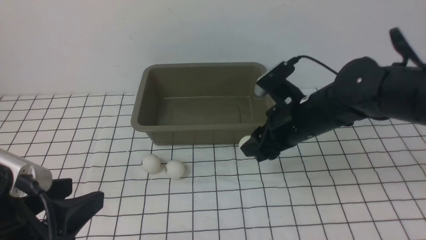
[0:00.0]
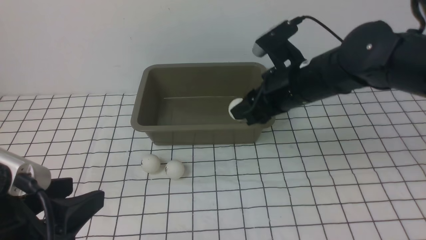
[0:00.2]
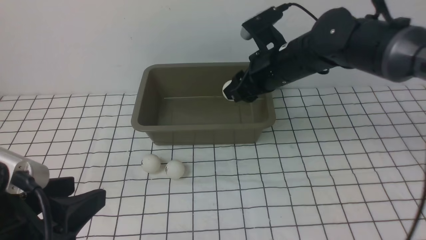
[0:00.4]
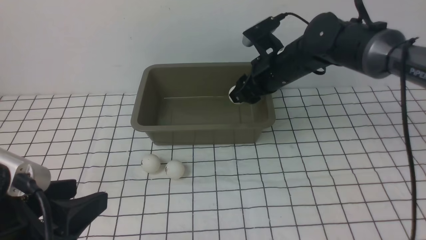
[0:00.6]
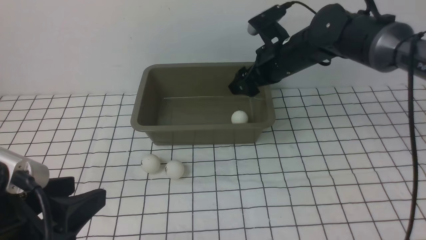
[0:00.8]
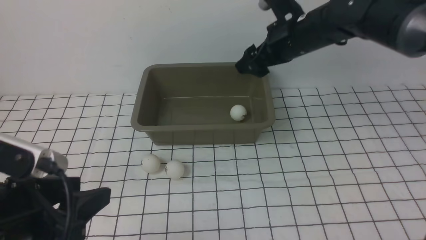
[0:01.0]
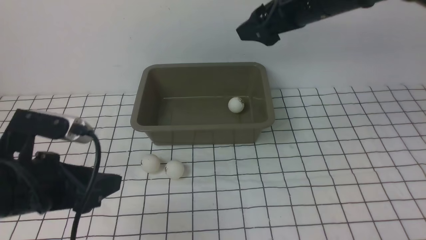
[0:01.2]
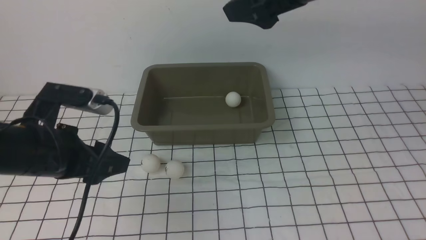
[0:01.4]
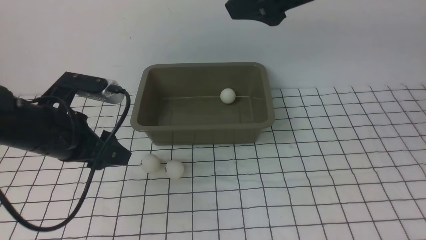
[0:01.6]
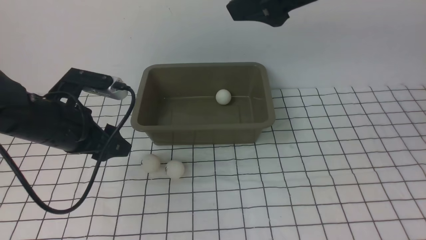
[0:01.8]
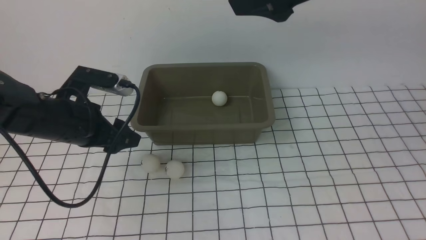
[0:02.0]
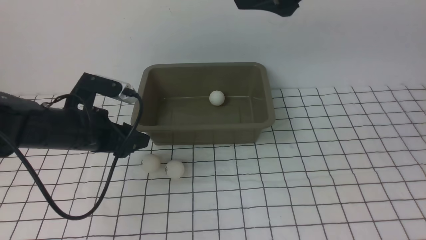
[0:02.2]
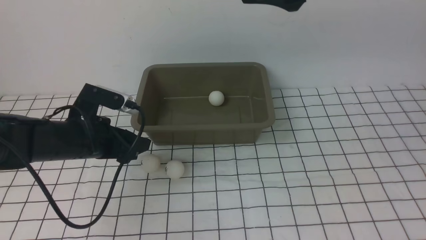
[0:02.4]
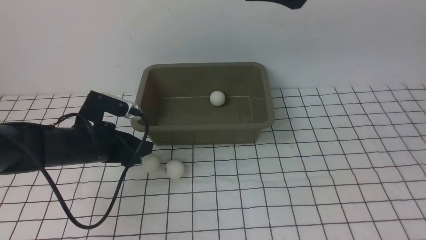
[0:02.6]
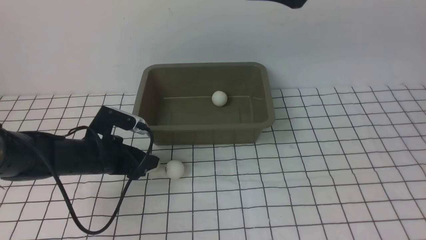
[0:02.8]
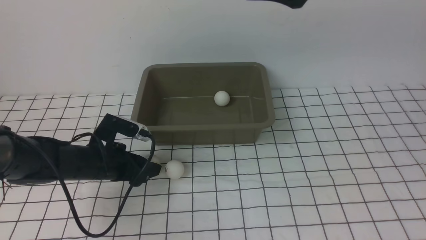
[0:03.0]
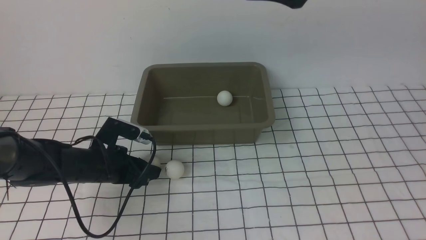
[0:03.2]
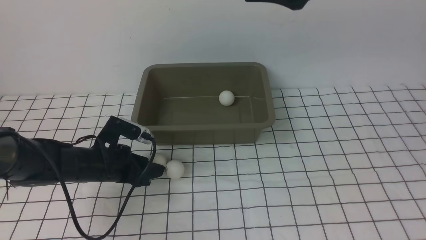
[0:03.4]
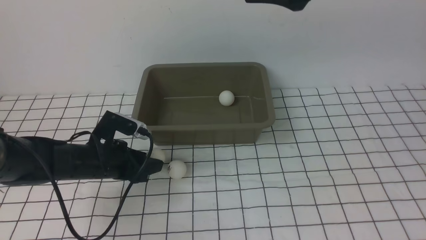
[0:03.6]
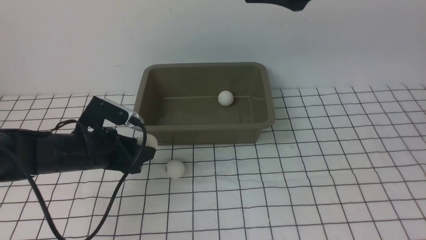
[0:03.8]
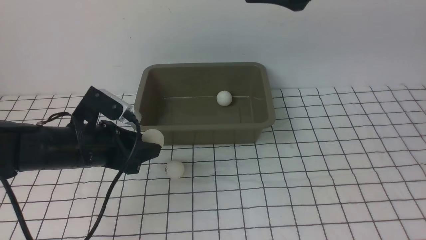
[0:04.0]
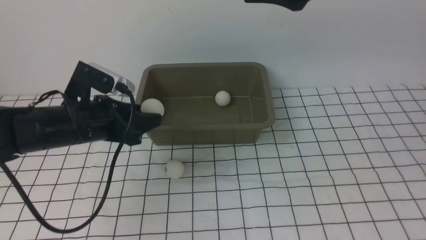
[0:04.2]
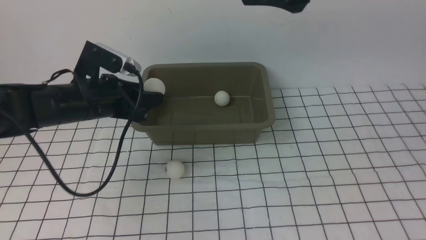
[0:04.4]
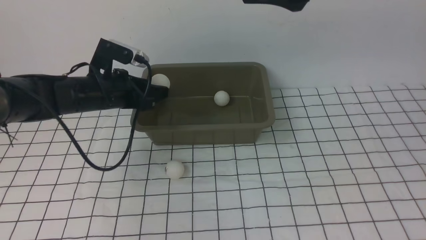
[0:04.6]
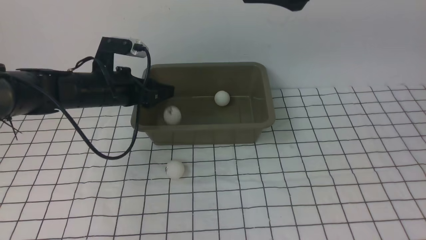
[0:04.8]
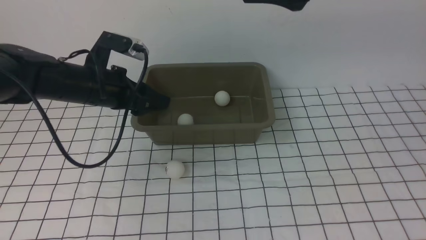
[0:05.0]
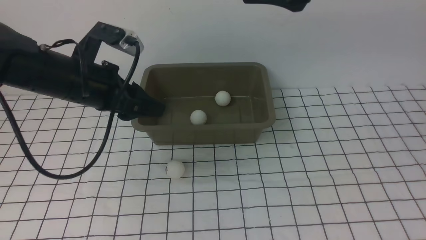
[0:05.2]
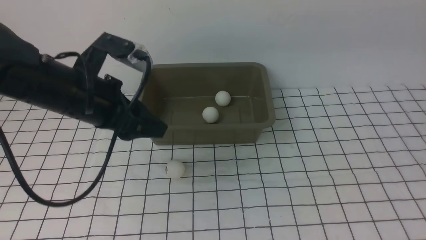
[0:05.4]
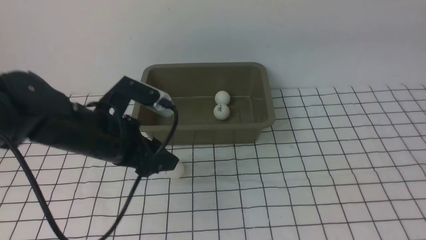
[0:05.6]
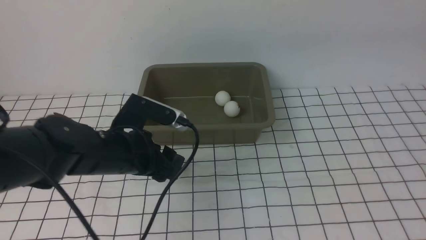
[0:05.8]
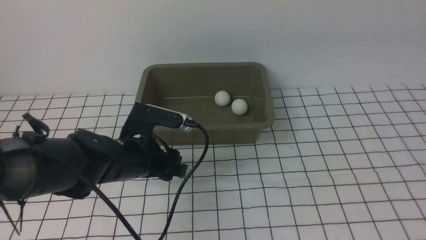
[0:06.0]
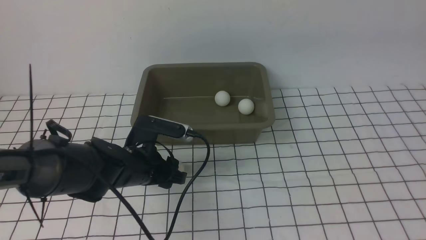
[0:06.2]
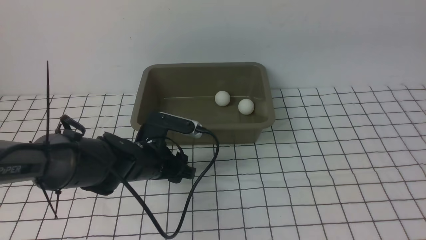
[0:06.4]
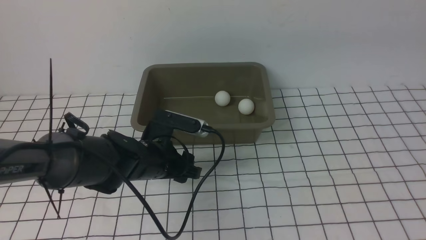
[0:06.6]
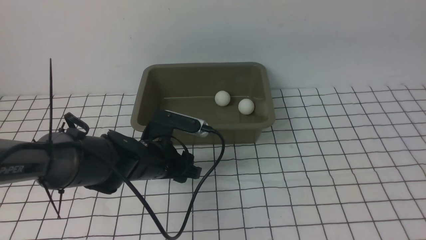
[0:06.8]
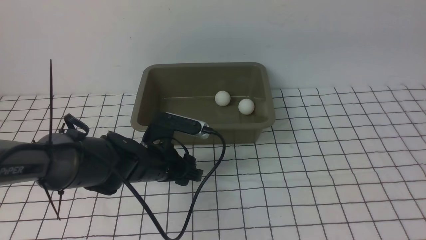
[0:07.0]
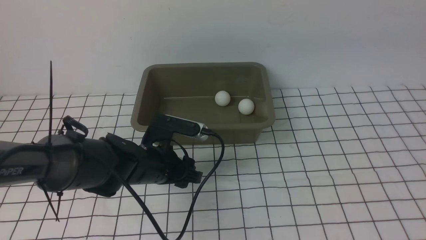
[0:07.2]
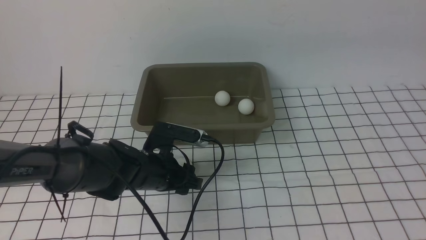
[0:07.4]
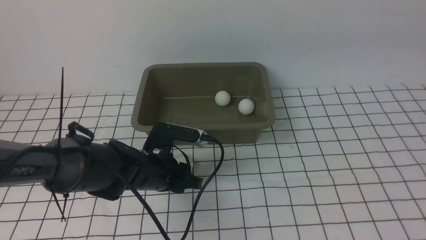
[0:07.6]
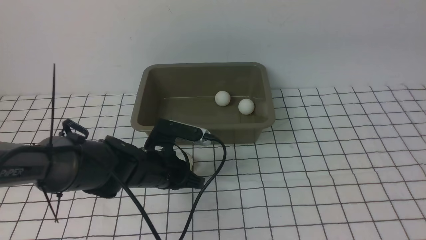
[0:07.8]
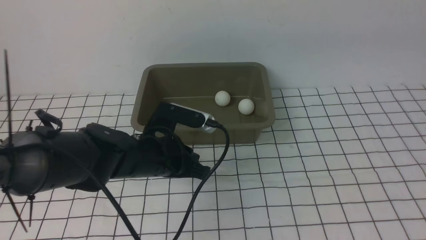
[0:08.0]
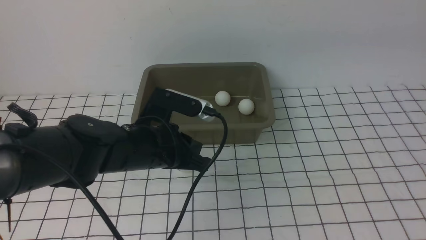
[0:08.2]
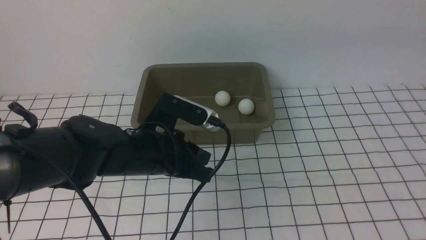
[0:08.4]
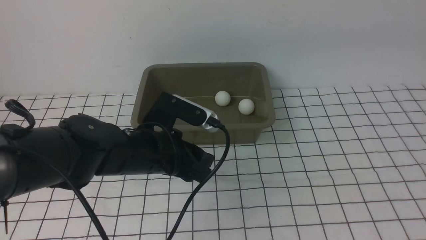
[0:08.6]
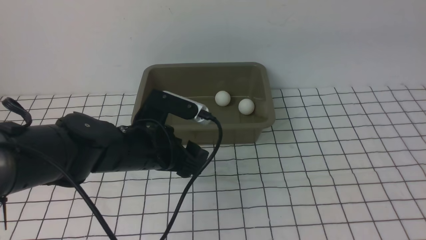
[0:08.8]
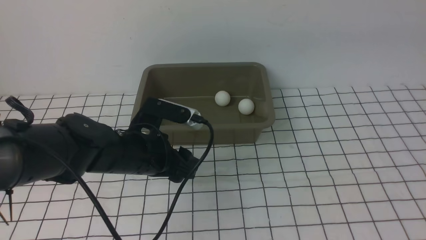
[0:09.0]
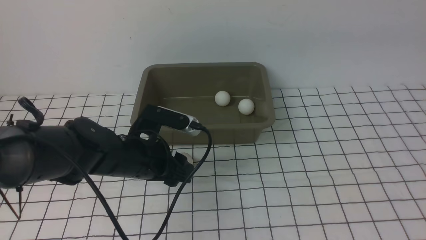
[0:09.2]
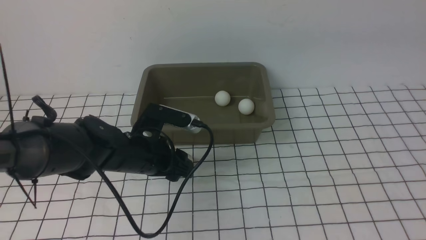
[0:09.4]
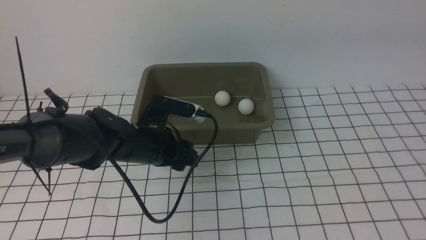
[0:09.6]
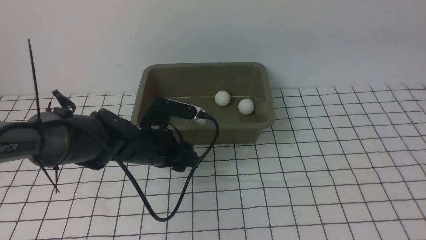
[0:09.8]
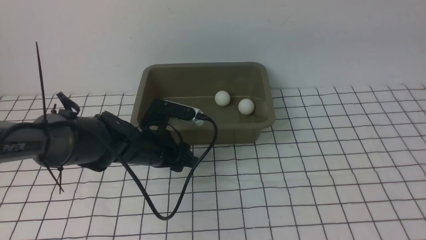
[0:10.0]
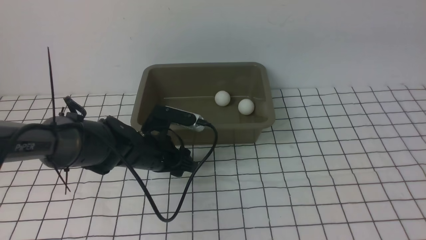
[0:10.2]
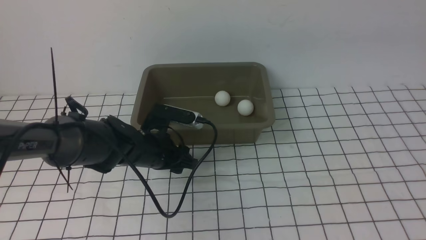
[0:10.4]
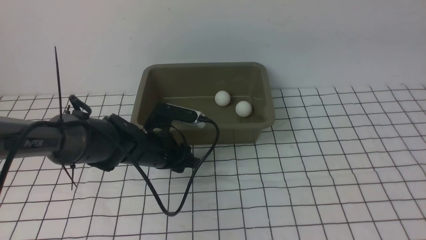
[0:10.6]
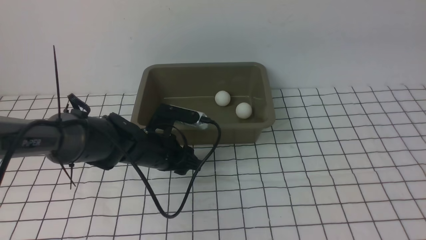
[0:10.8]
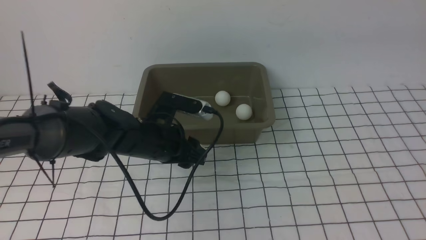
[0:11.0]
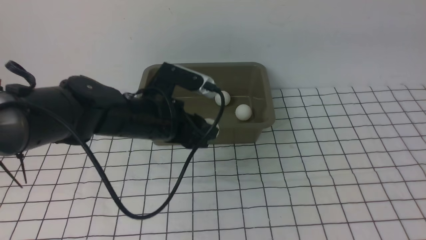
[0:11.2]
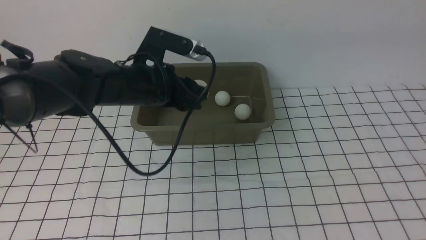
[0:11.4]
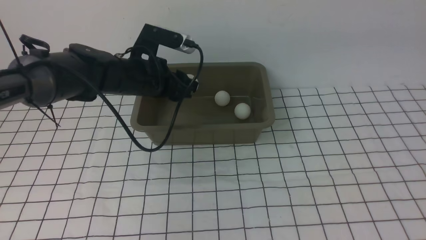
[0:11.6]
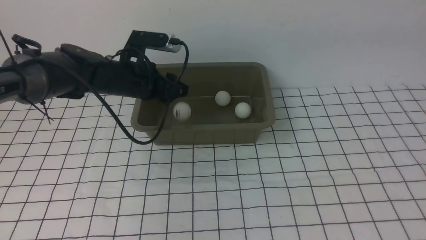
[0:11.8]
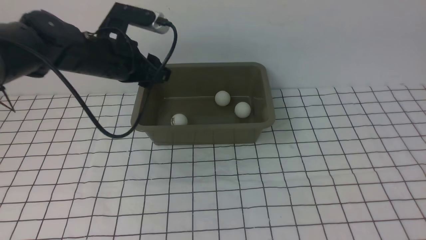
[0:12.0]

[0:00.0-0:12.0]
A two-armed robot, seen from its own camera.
Step, 0:00.2 to 0:00.8: use the right arm to put the table tennis ball into the box.
Step, 0:01.2 to 0:03.6: use the left arm to clamp the table tennis ball closest to it.
Step, 0:03.8 to 0:04.8: use the left arm to put the table tennis ball into the box.
Step, 0:05.0 to 0:11.2: use the left arm to clamp the table tennis ball closest to it.
Step, 0:11.4 to 0:12.0: use the left arm to put the table tennis ball into the box.
0:00.0 to 0:01.6: The left gripper is displaced forward by approximately 20 cm; the right gripper travels upward by roughly 20 cm, and opens.
0:01.6 to 0:03.0: The left gripper is displaced downward by about 15 cm.
0:03.0 to 0:04.4: The left gripper is displaced upward and forward by some 15 cm.
0:04.4 to 0:06.0: The right gripper goes approximately 5 cm backward. The left gripper heads downward, to the right and backward, covering some 15 cm.
0:06.0 to 0:07.6: The left gripper closes its fingers.
0:07.6 to 0:09.0: The left gripper opens its fingers.
0:09.0 to 0:10.4: The left gripper goes approximately 5 cm forward and downward.
0:10.4 to 0:12.0: The right gripper changes place by approximately 5 cm, while the left gripper travels upward and forward by roughly 15 cm.

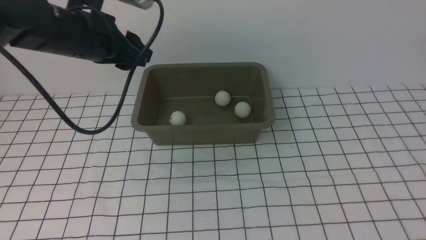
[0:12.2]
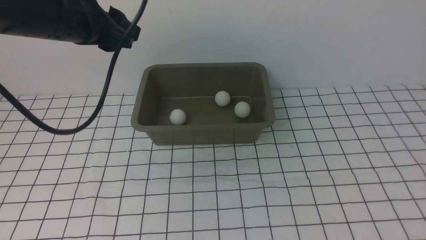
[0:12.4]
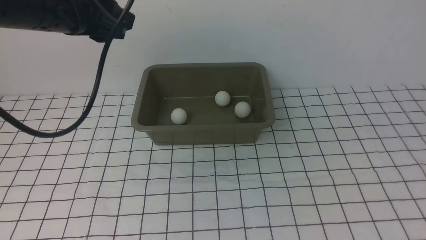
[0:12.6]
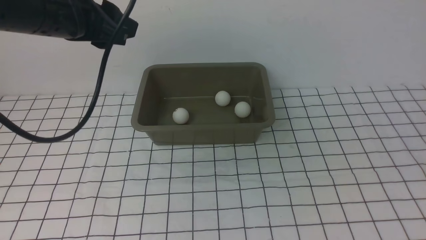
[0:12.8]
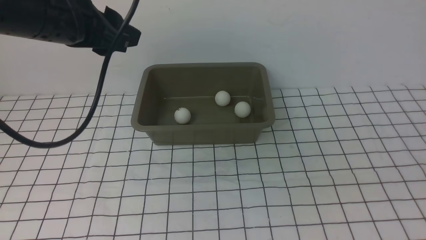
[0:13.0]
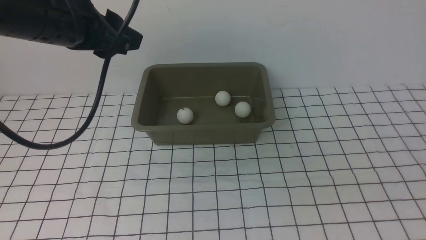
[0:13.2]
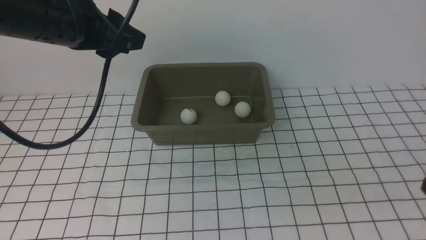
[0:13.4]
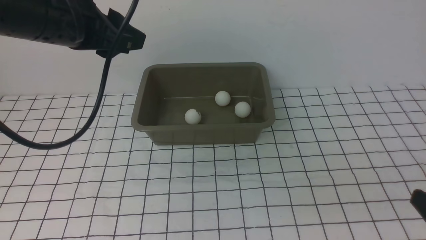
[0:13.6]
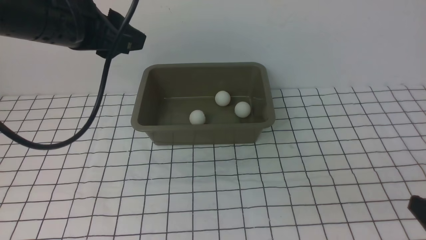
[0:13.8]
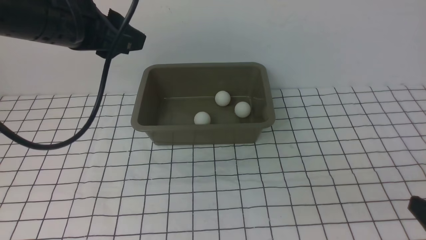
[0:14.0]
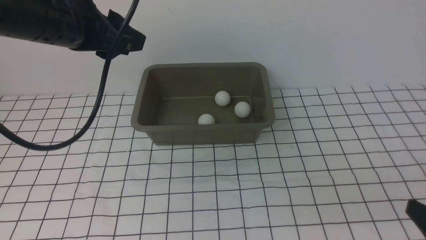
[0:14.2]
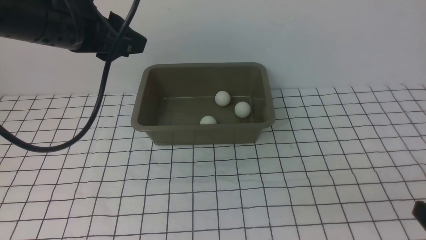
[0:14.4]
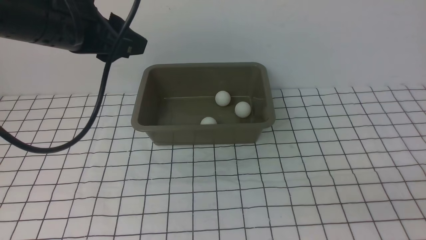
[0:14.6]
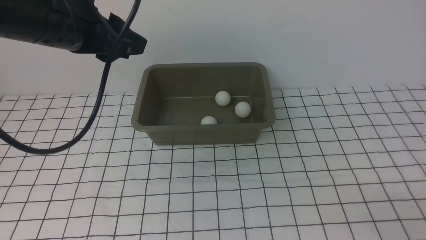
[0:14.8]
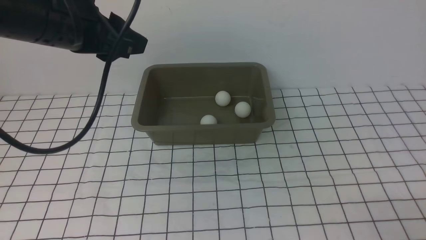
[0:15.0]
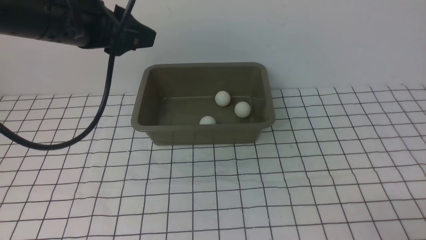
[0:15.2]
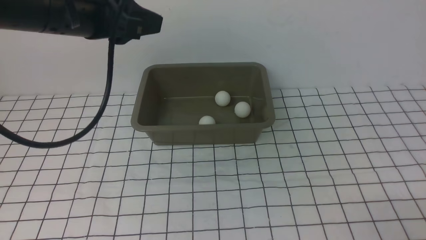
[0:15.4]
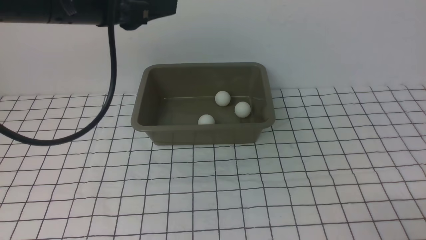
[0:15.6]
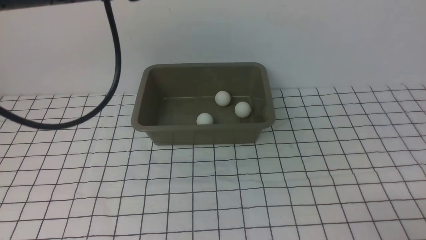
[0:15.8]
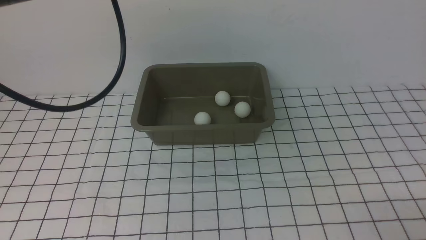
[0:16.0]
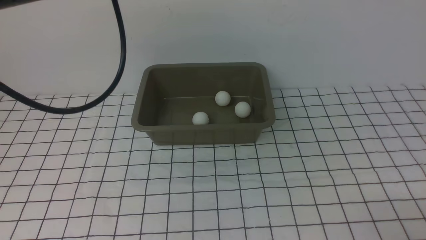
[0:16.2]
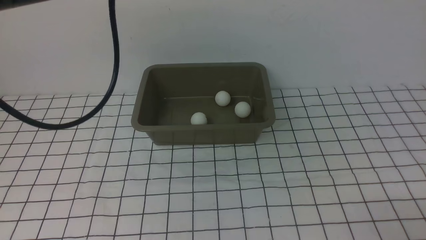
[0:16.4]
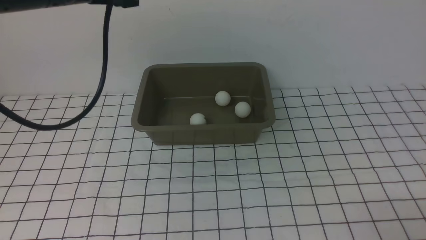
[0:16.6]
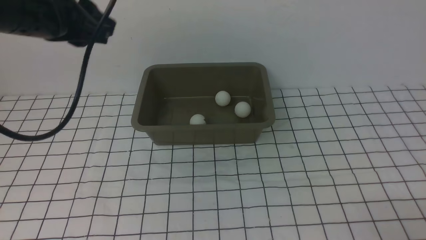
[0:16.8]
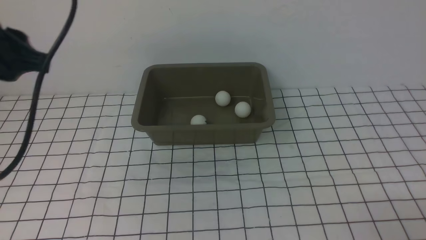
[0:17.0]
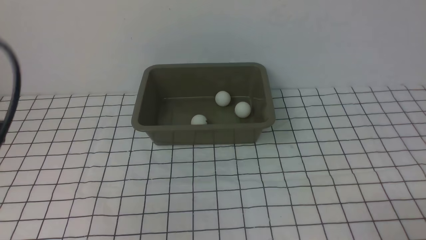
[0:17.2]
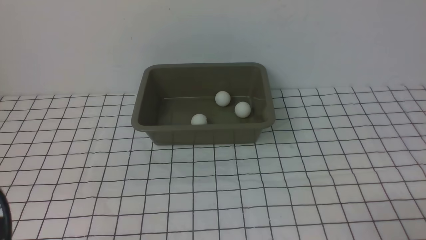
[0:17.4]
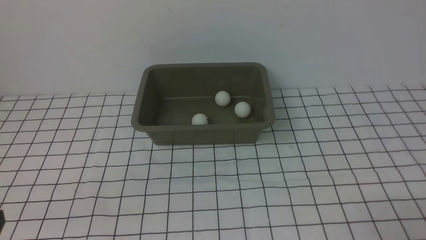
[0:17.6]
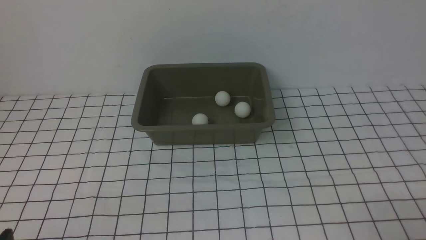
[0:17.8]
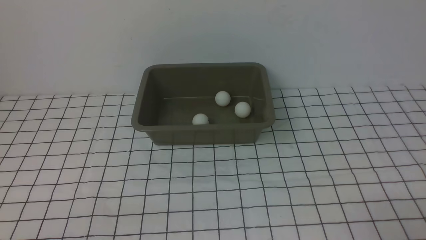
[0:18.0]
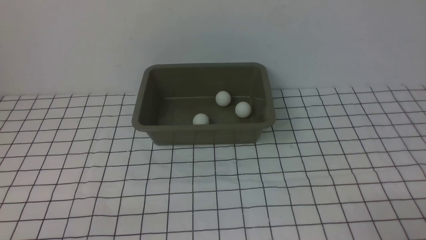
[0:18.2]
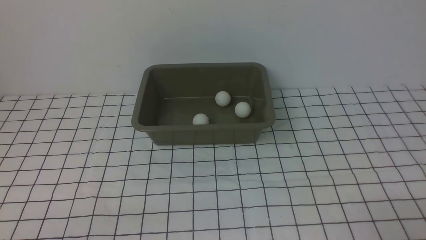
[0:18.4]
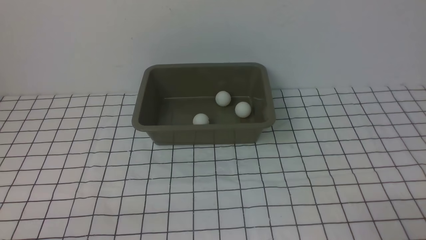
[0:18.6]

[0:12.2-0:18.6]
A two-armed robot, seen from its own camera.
0:12.2 to 0:13.8: The left gripper is displaced backward and upward by about 10 cm, while the right gripper travels downward by some 30 cm, and closes its fingers.
0:13.8 to 0:15.4: The right gripper heads downward, covering roughly 5 cm.
0:15.4 to 0:17.0: The left gripper goes roughly 10 cm backward and to the left.
0:17.0 to 0:18.6: The left gripper heads downward and backward, covering about 30 cm.
